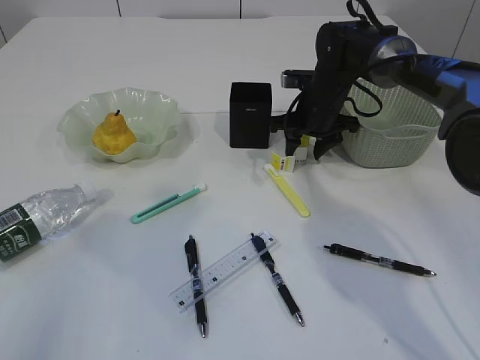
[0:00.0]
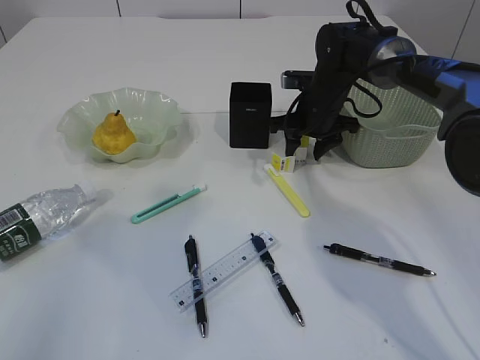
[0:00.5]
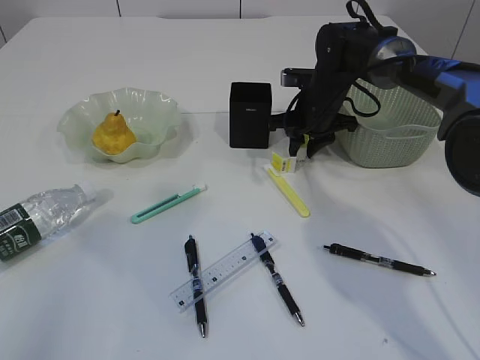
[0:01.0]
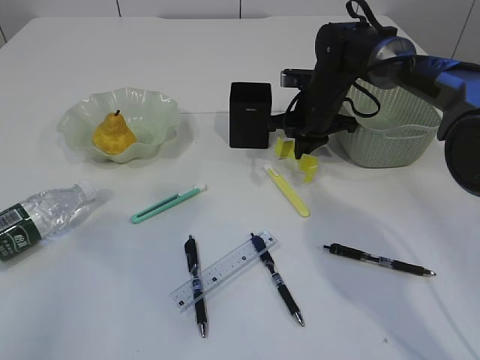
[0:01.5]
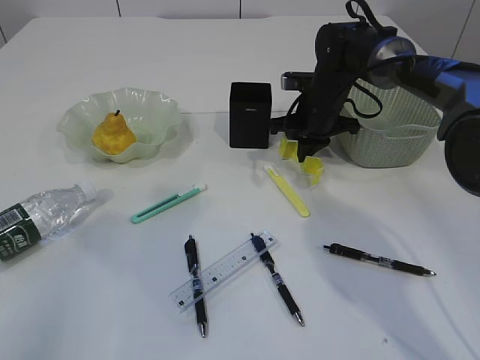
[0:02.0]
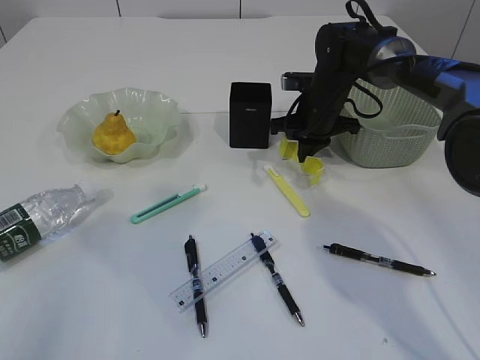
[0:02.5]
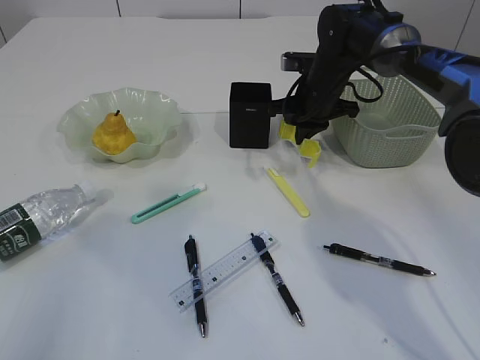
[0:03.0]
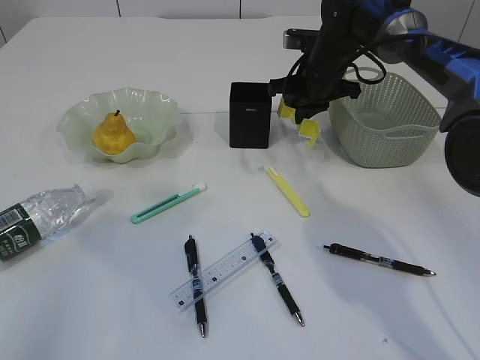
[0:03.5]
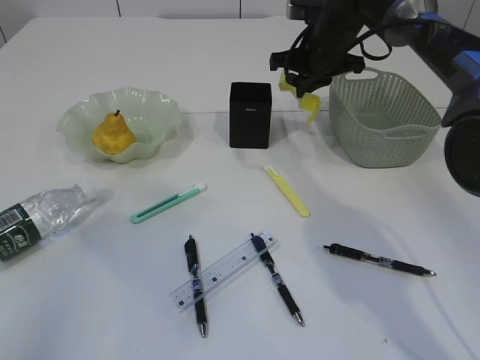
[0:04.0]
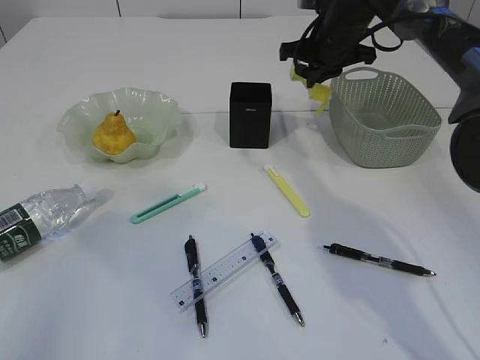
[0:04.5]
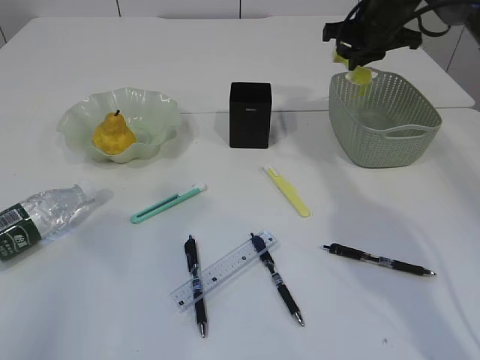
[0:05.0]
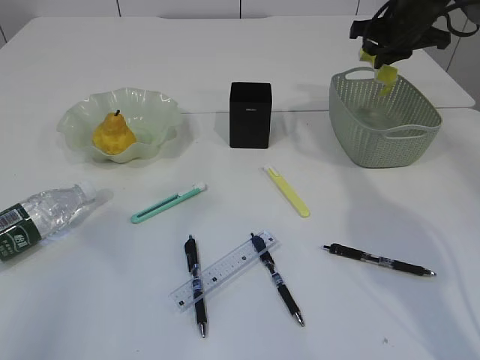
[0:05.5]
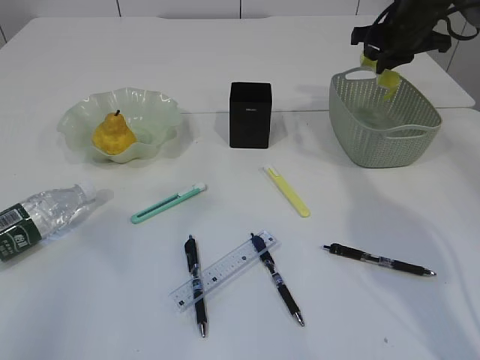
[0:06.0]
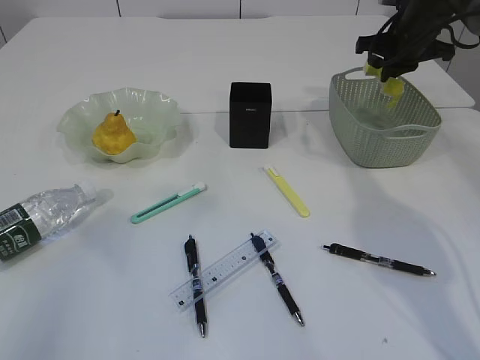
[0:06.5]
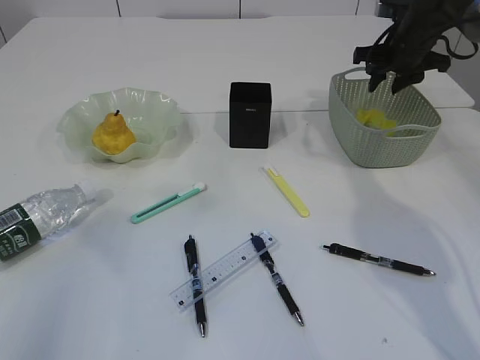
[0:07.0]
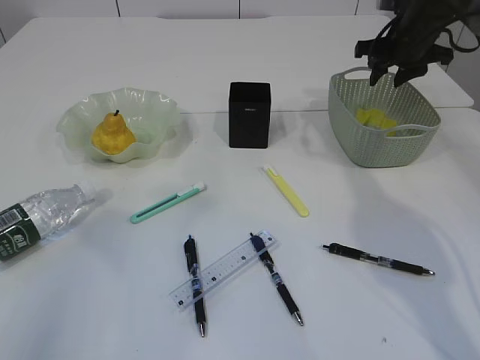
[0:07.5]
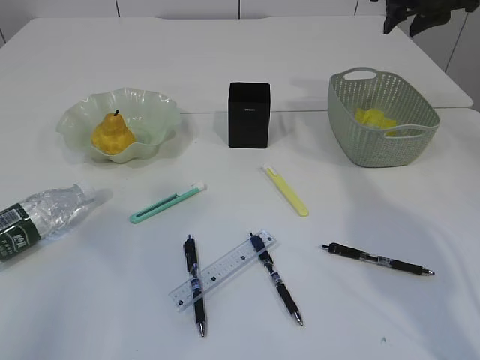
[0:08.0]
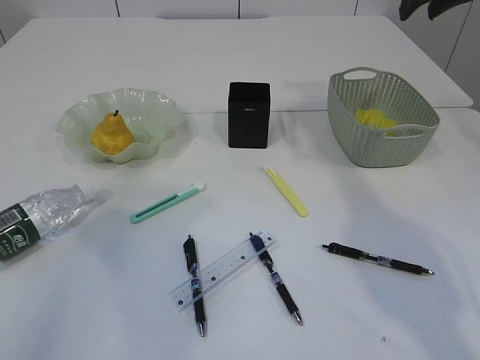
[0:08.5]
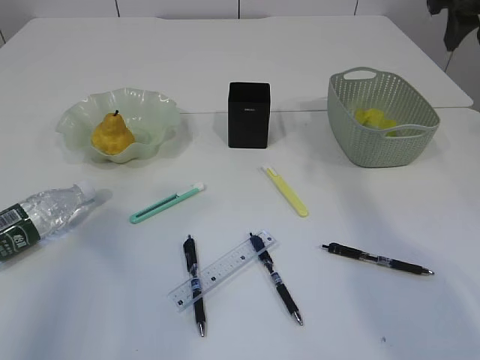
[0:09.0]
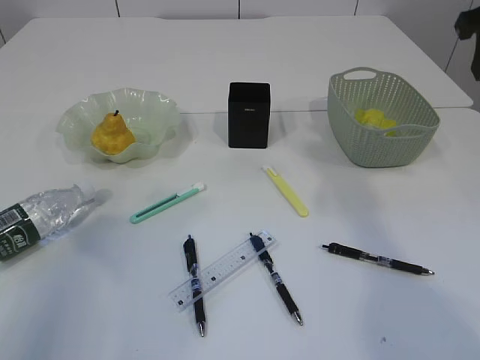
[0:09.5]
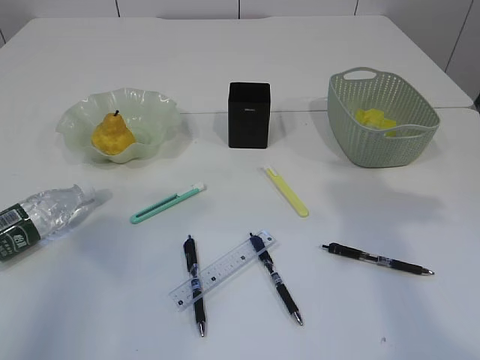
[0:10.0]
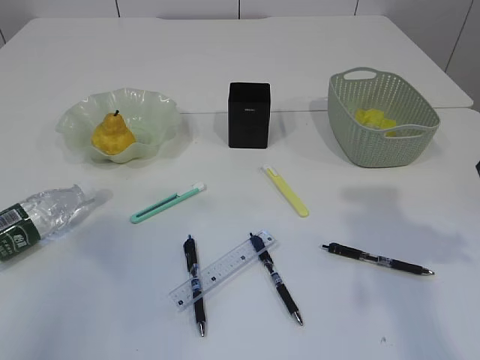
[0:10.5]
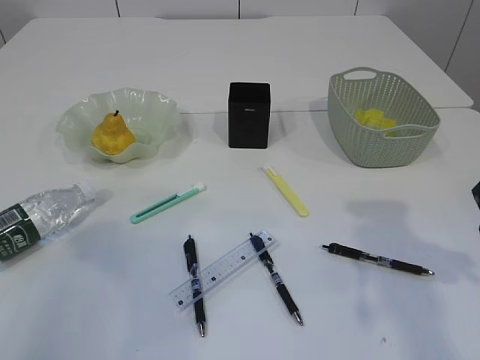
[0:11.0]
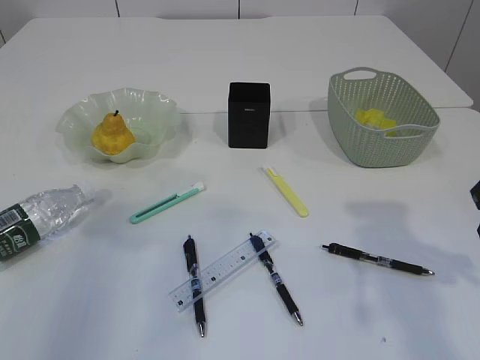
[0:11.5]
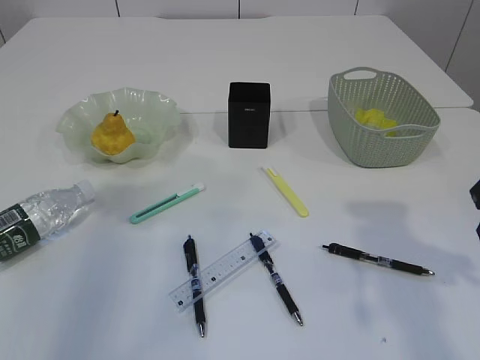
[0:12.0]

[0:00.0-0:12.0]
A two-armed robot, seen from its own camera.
Step, 0:00.0 to 0:04.0: Pick up the waste paper.
Step, 0:04.5 to 0:11.0: Place the waste paper in the basket.
0:00.0 to 0:02.0: The right gripper closes.
0:02.0 to 0:04.0: The right gripper is displaced upward by about 10 cm.
0:04.0 to 0:06.0: The right gripper is displaced to the right by roughly 10 cm.
0:06.0 to 0:08.0: The right gripper heads upward, covering approximately 5 cm, and opens.
0:08.0 to 0:10.0: The right gripper travels backward by roughly 20 cm.

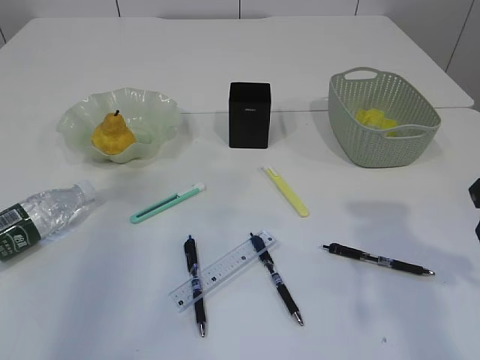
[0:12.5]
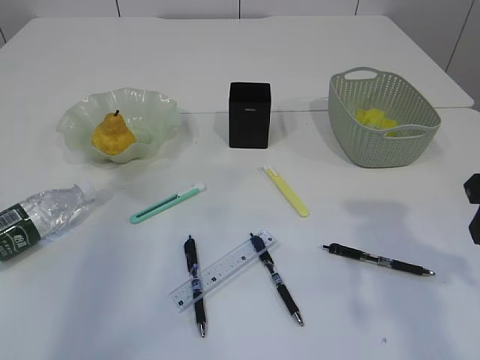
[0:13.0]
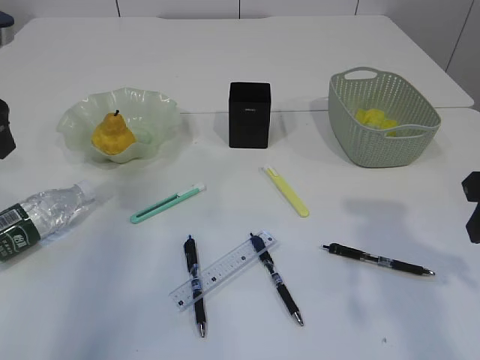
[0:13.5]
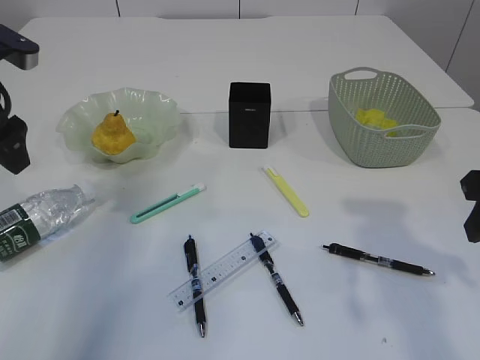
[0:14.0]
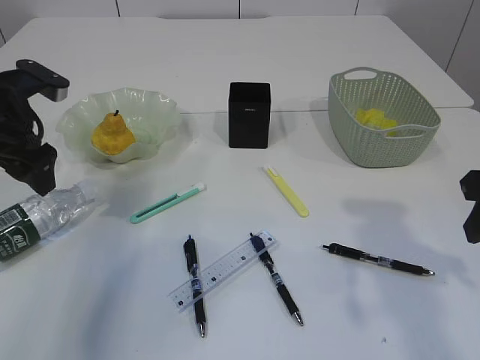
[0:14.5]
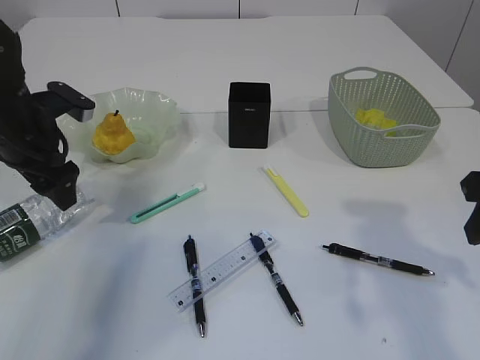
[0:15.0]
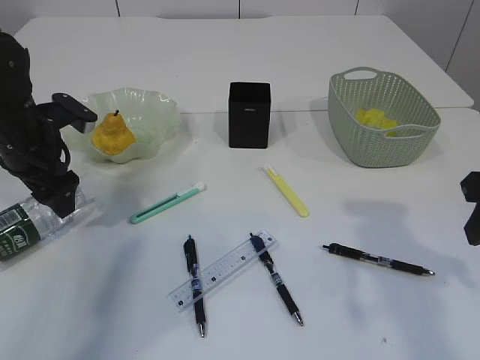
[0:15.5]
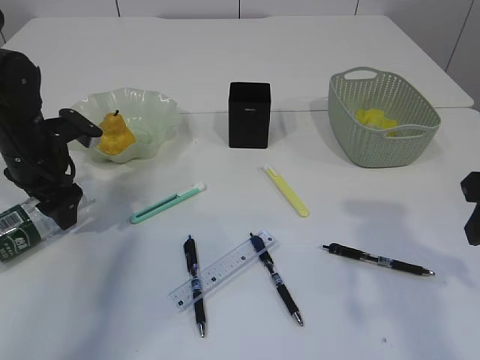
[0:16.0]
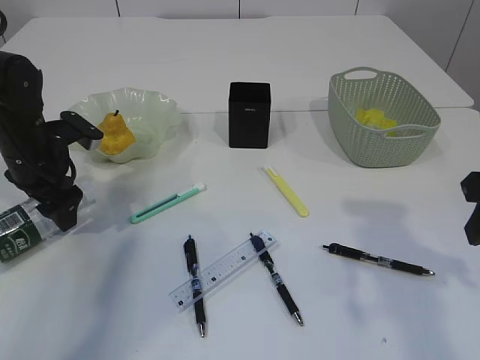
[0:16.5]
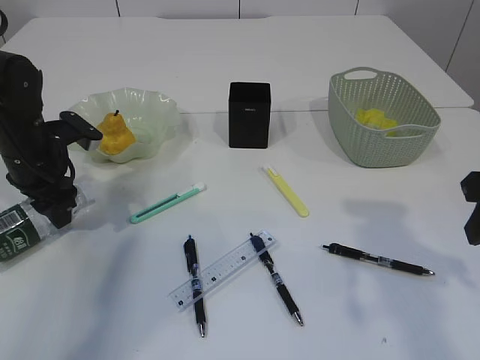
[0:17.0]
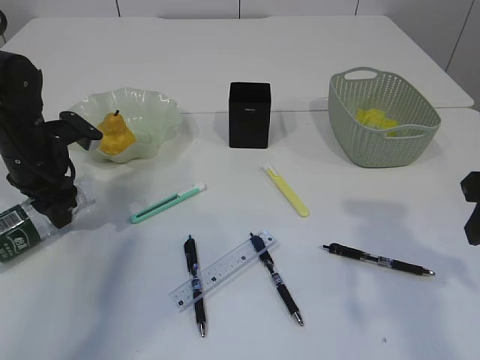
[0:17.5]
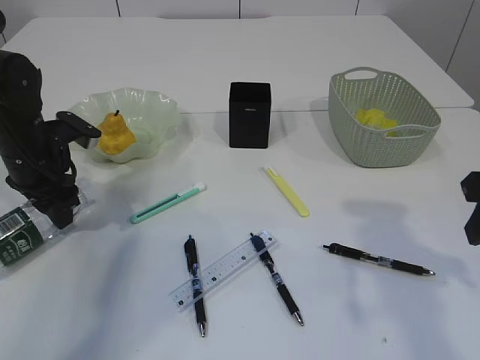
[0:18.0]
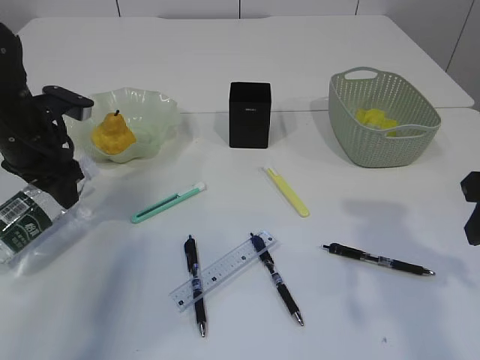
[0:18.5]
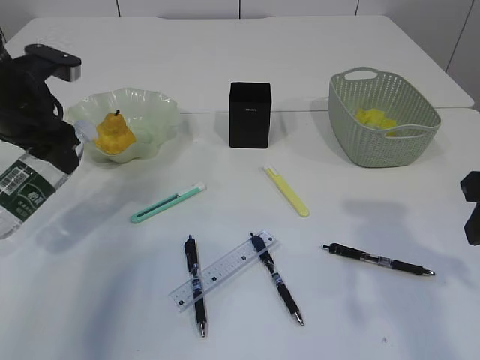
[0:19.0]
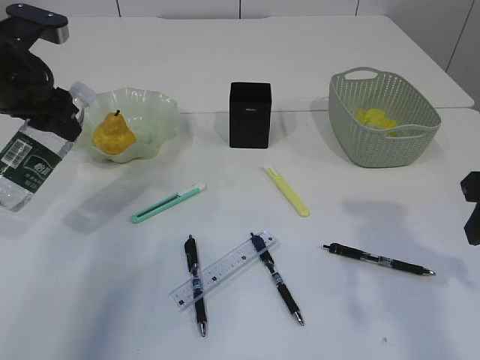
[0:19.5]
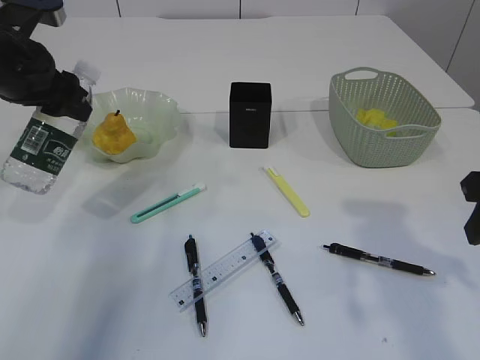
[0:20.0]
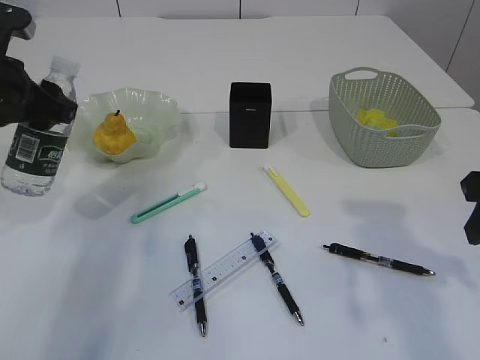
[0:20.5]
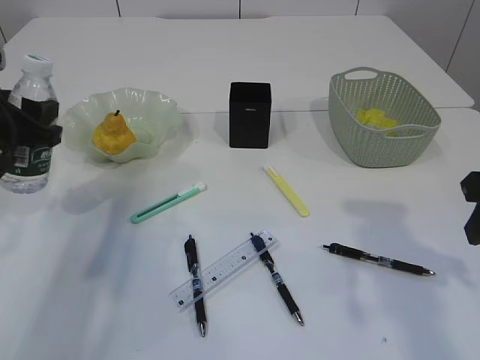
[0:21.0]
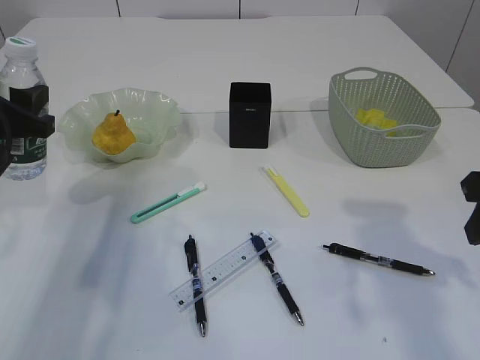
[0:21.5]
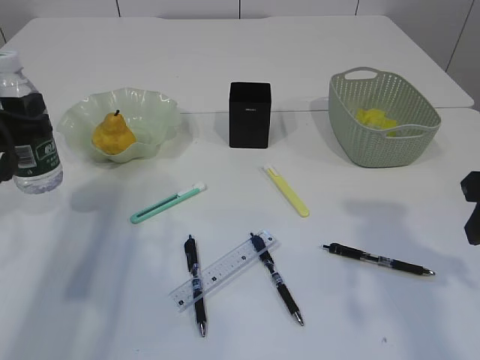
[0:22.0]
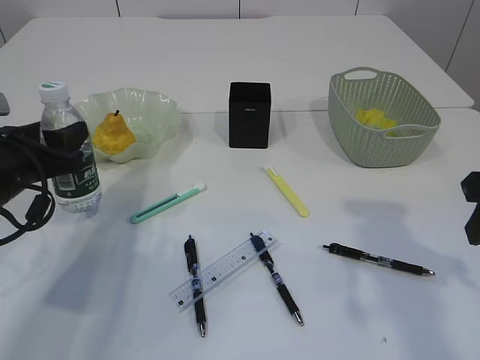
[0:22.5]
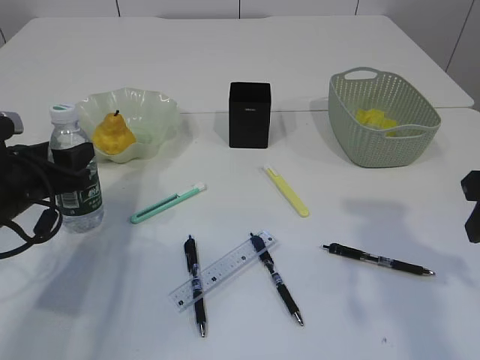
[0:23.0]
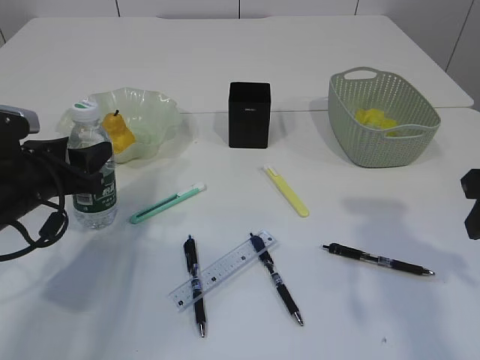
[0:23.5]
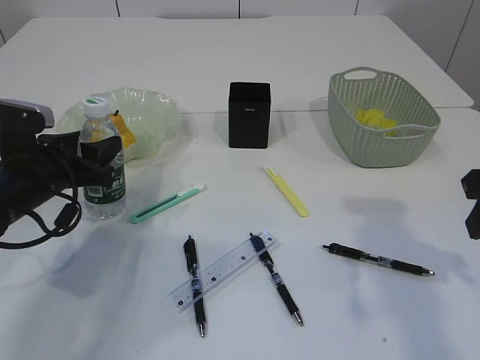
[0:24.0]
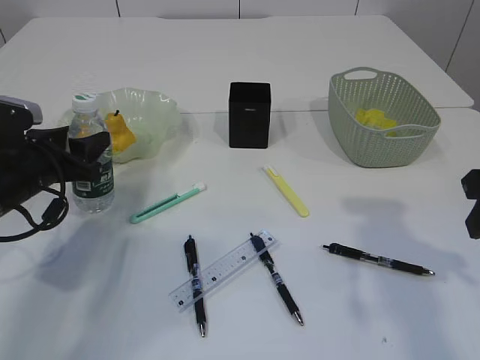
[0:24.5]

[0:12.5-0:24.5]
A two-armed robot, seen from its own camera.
Step, 0:12.5 to 0:19.5: Pick up the bottle with the left arm.
0:12.5 to 0:14.5: The left gripper moves downward and forward, approximately 15 cm, and opens its fingers.
0:14.5 to 0:16.5: The left gripper travels downward by approximately 10 cm.
0:16.5 to 0:18.5: The left gripper closes.
0:18.5 to 0:20.5: The left gripper shifts about 5 cm upward.
0:20.5 to 0:22.5: The left gripper shifts about 10 cm downward.
0:22.5 to 0:24.5: There are only small adjustments of the grippers.

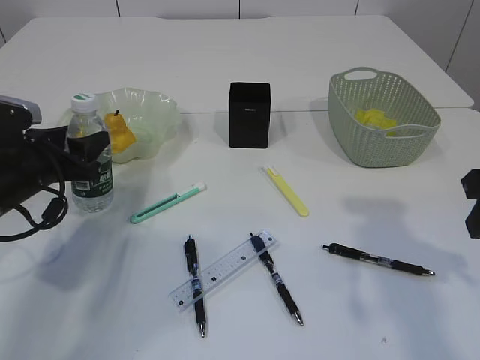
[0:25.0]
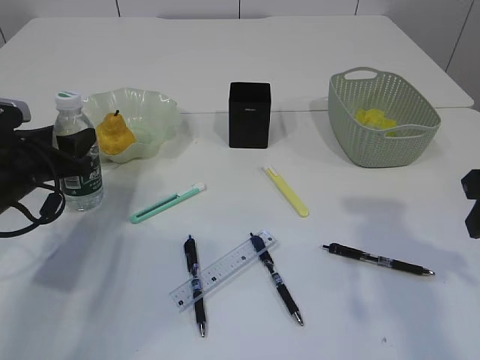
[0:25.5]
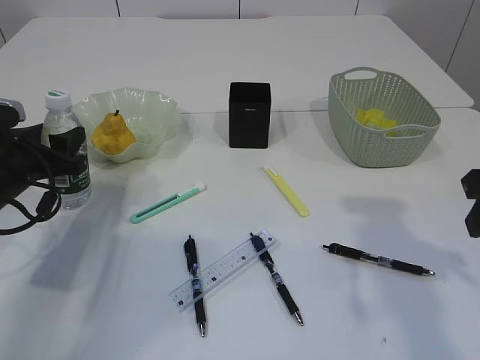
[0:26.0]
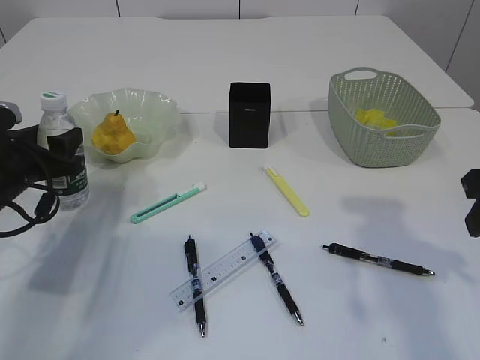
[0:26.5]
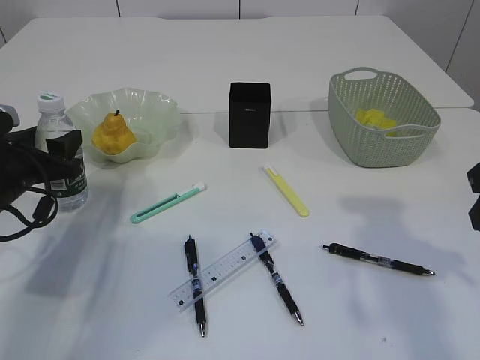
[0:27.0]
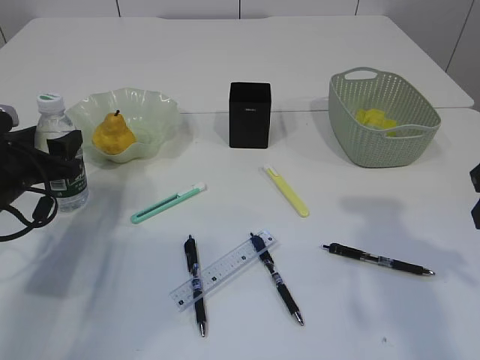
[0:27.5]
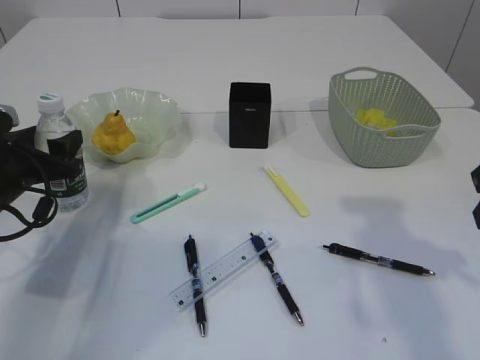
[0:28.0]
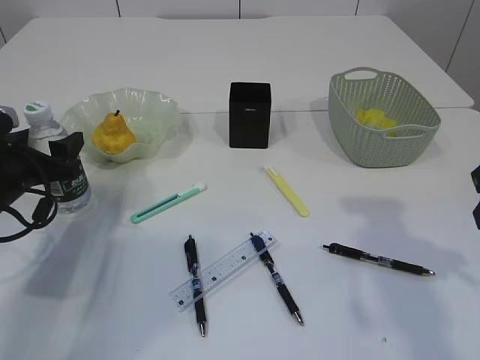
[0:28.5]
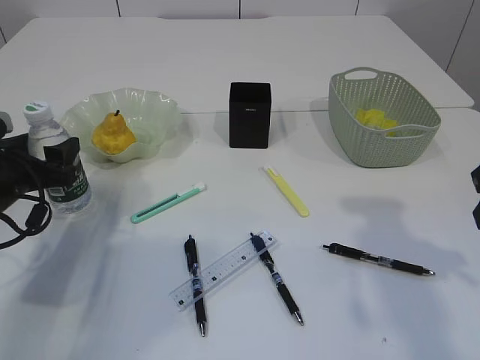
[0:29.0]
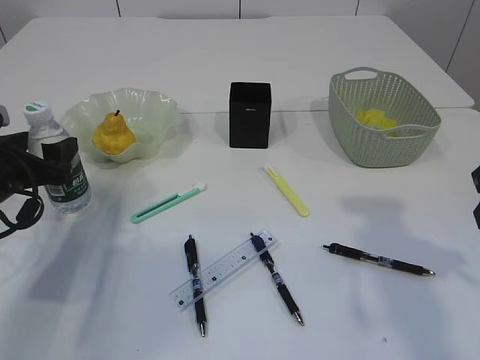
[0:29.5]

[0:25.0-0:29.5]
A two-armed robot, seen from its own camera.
0:25.0 to 0:29.5: The grippers stay close to where they were, moving slightly.
